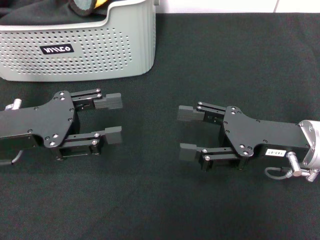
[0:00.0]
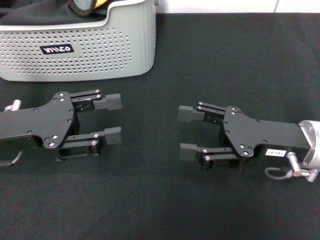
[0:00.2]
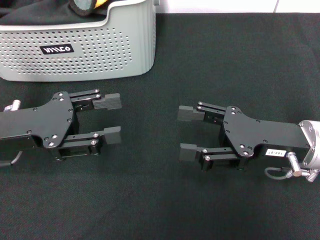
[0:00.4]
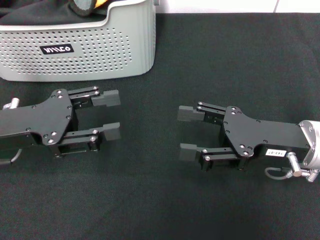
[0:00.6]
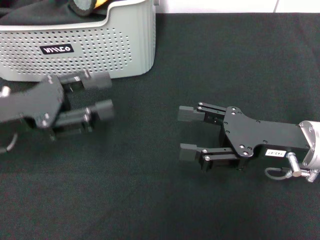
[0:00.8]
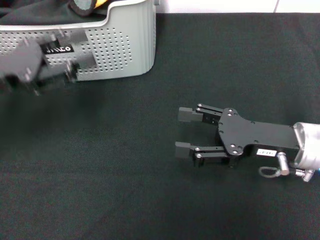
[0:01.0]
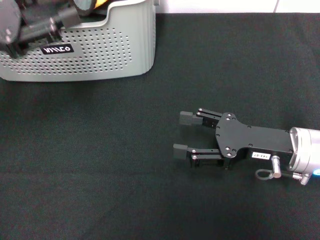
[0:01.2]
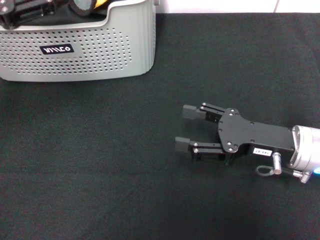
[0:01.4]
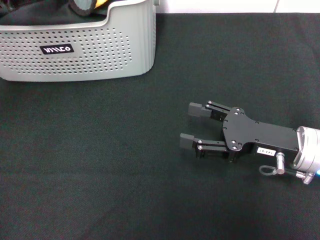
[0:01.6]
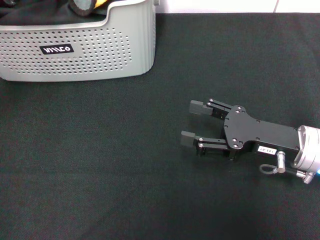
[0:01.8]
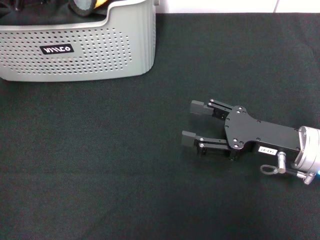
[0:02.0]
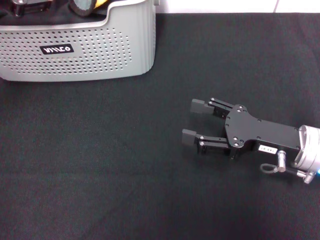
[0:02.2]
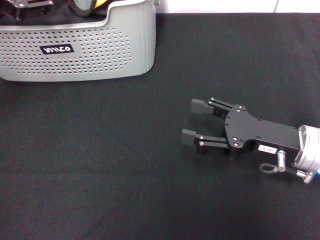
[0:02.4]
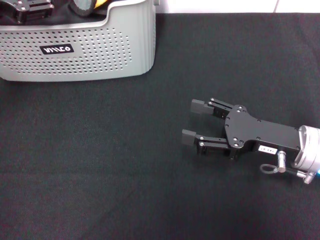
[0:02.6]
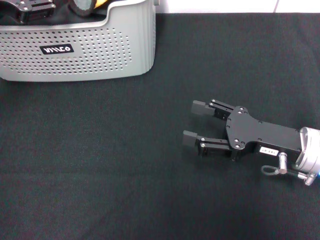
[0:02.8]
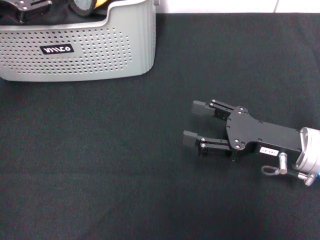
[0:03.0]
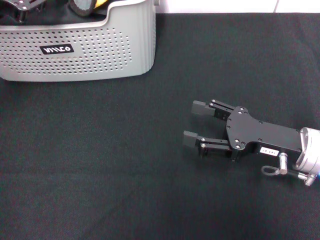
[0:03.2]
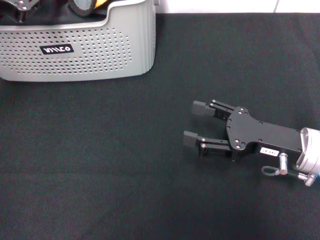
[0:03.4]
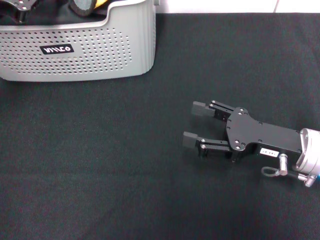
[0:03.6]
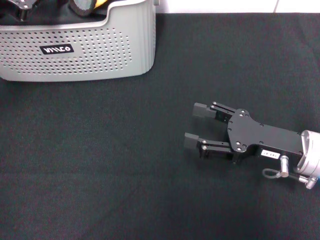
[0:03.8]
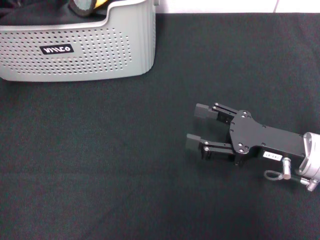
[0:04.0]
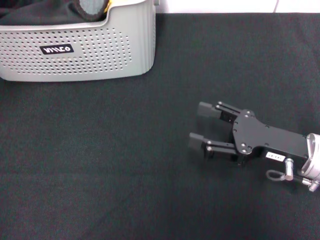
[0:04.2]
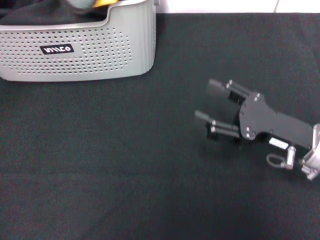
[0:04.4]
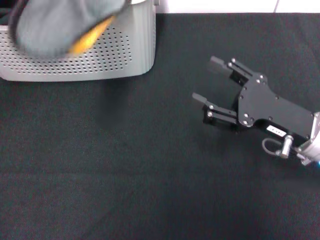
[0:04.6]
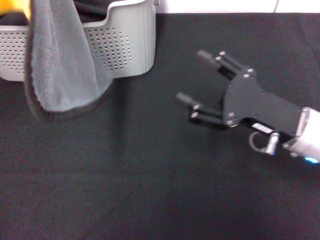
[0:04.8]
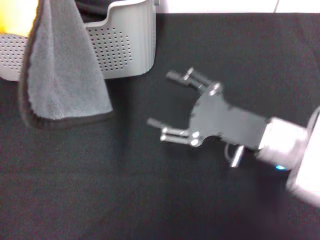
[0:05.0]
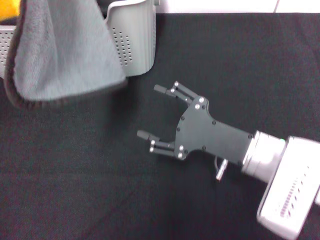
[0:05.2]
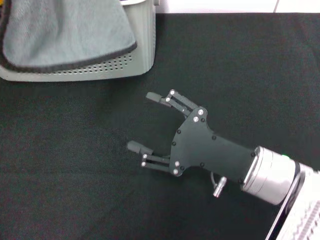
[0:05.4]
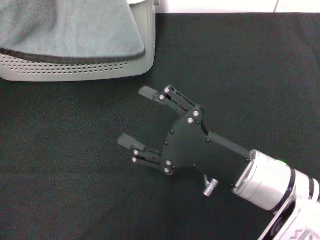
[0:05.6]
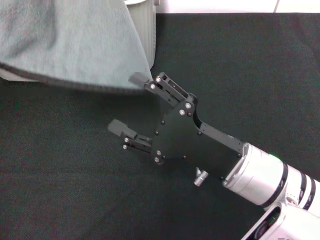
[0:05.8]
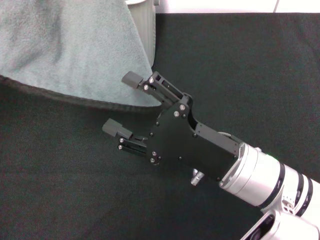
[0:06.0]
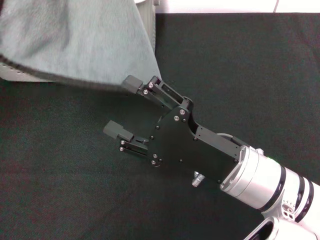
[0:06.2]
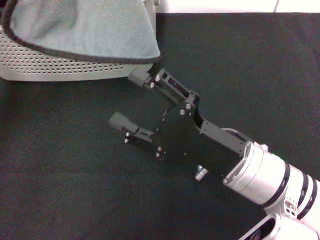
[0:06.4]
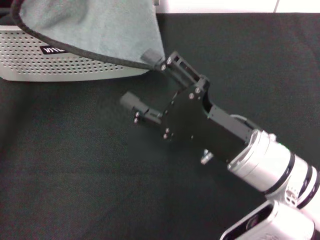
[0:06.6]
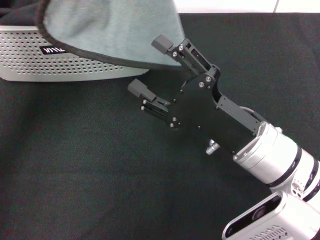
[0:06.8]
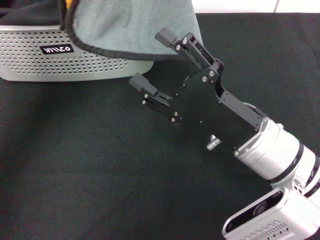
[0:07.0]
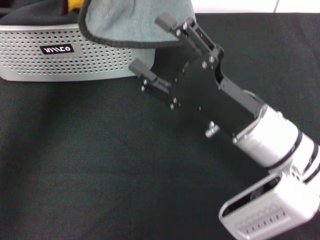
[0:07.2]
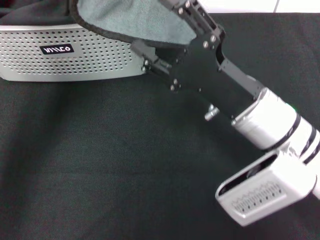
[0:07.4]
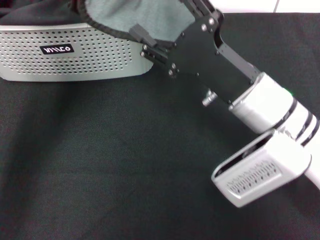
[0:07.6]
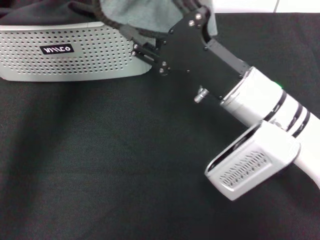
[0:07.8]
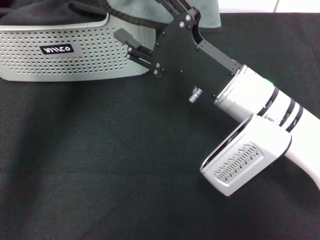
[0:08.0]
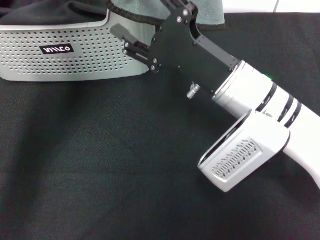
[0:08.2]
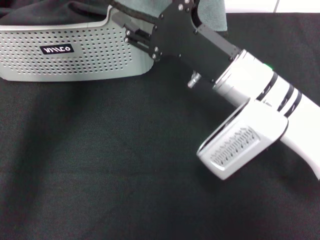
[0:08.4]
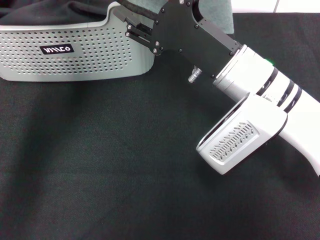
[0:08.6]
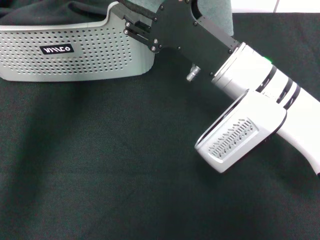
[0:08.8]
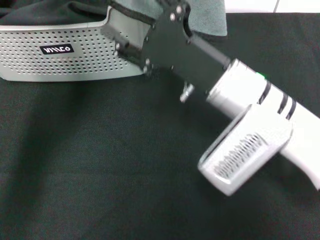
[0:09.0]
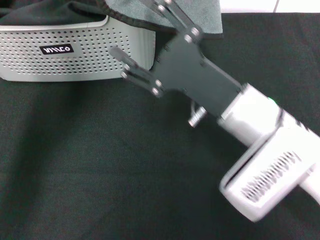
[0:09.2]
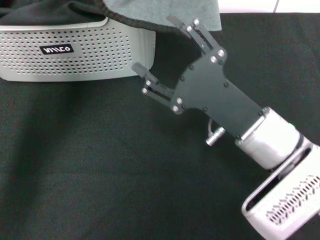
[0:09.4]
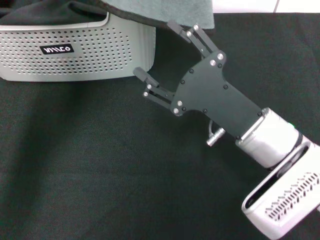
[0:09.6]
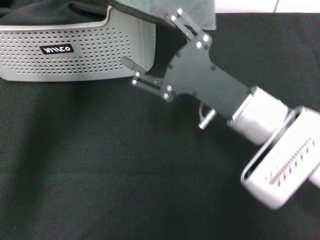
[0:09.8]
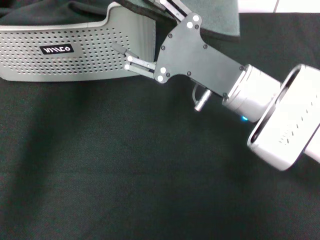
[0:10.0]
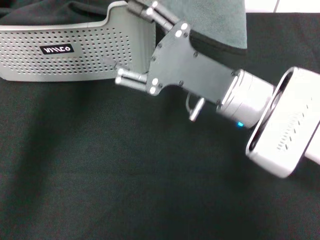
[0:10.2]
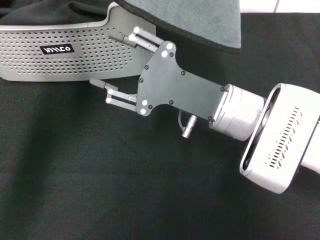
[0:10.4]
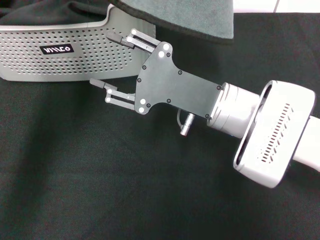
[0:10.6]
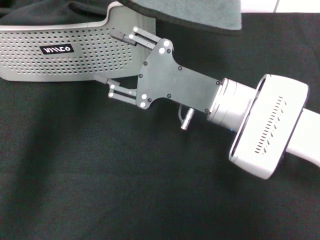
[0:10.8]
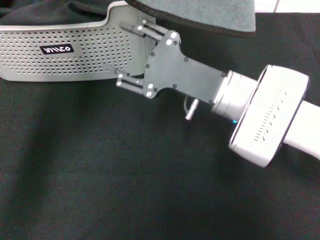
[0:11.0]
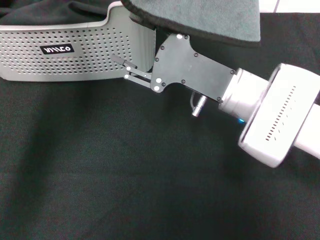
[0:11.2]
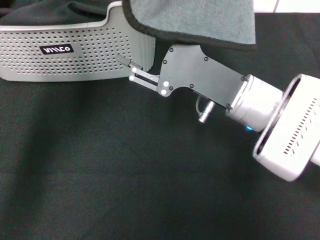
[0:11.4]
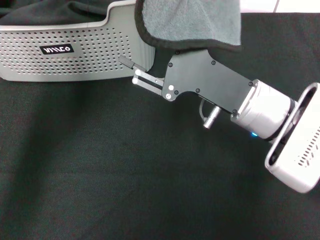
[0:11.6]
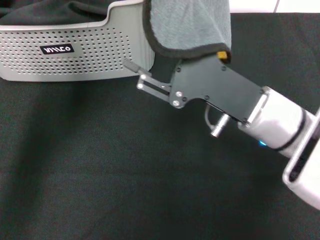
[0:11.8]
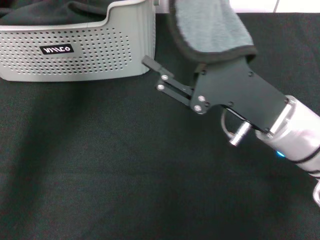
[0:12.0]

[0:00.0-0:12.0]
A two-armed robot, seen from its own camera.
Task of the whole recording: pick up the towel from the storage box and lay it flat on the black tablecloth.
Step, 0:00.0 to 0:03.8: Pick up a towel with the left gripper.
0:00.0 to 0:01.6: The left gripper shifts roughly 15 cm upward.
0:01.6 to 0:03.0: There are only small adjustments of the grippers.
0:03.0 to 0:04.4: The left gripper is displaced upward by approximately 5 cm, and closes.
0:04.4 to 0:06.0: The right gripper goes about 10 cm to the left and backward.
0:06.0 to 0:07.6: The right gripper goes approximately 5 cm forward, while the left gripper travels to the right by approximately 10 cm.
0:10.4 to 0:12.0: The right gripper changes place by approximately 5 cm.

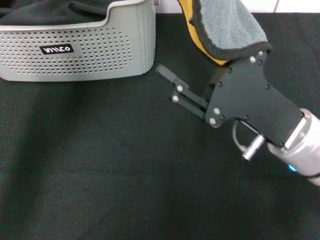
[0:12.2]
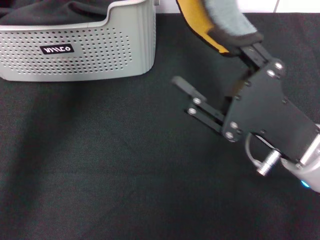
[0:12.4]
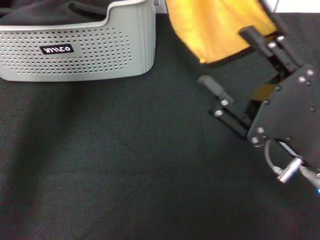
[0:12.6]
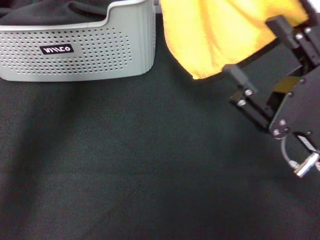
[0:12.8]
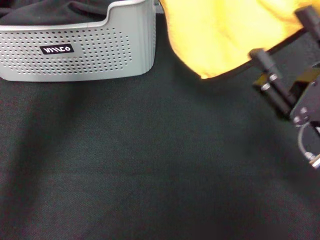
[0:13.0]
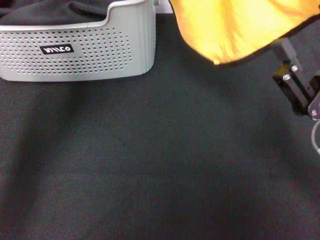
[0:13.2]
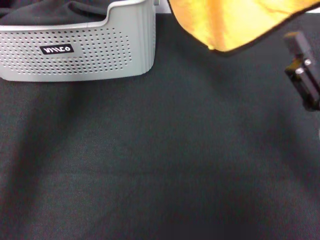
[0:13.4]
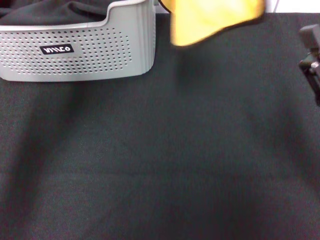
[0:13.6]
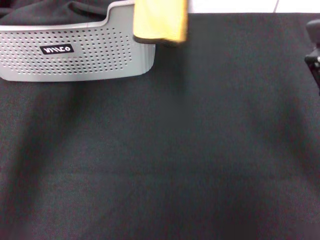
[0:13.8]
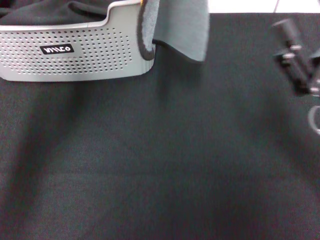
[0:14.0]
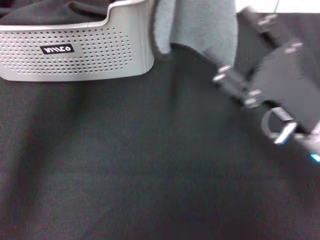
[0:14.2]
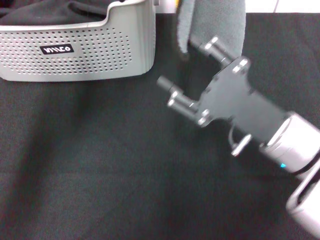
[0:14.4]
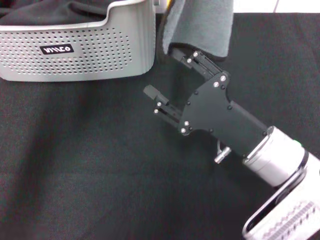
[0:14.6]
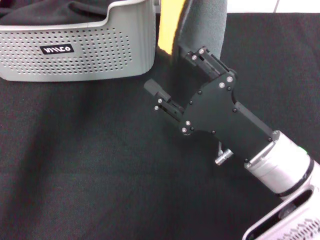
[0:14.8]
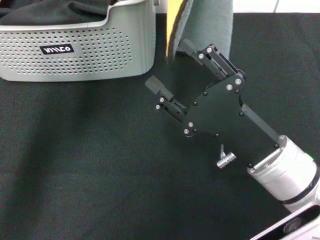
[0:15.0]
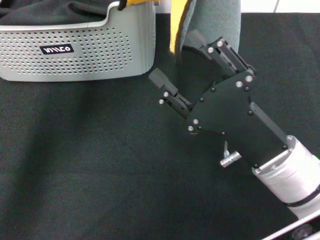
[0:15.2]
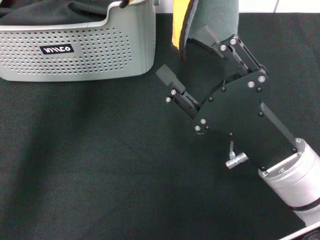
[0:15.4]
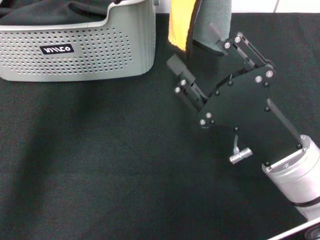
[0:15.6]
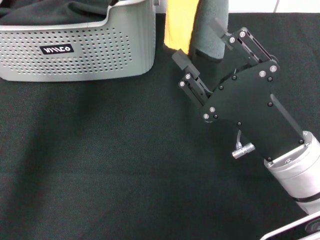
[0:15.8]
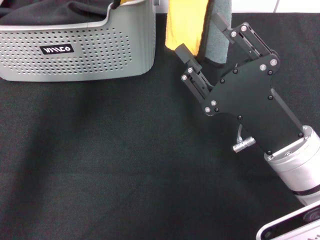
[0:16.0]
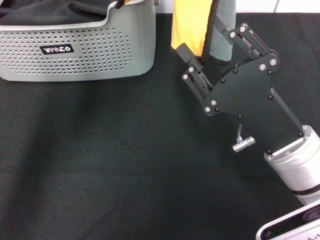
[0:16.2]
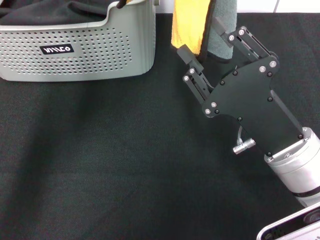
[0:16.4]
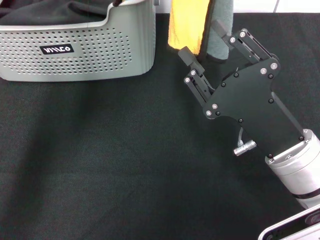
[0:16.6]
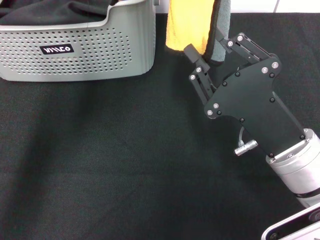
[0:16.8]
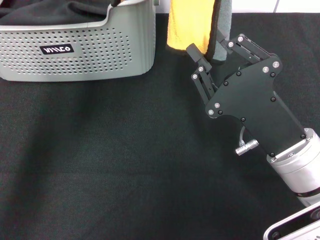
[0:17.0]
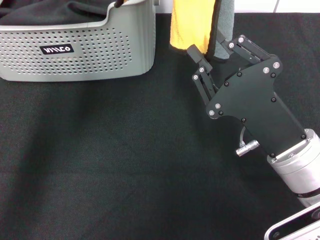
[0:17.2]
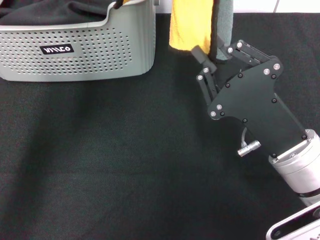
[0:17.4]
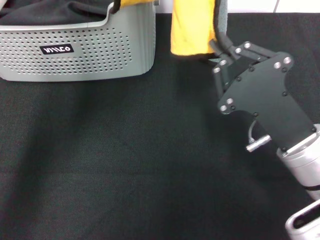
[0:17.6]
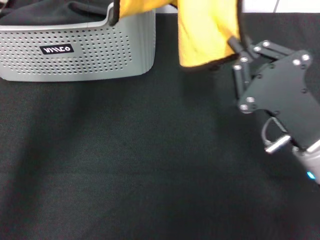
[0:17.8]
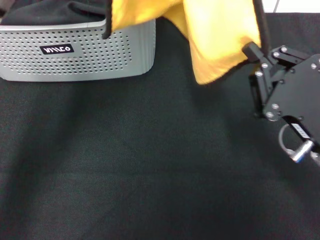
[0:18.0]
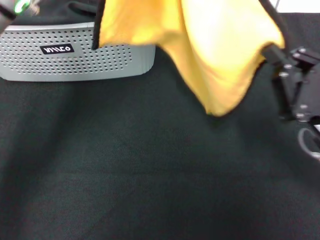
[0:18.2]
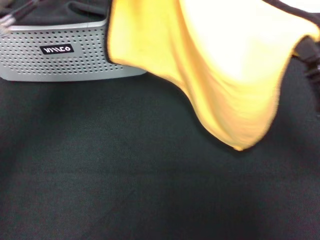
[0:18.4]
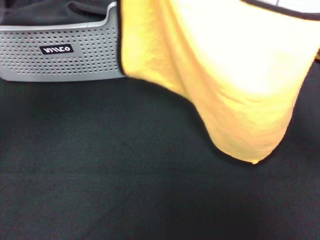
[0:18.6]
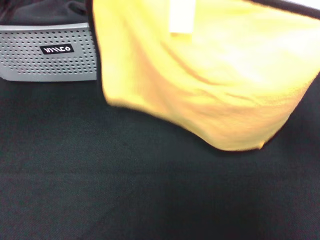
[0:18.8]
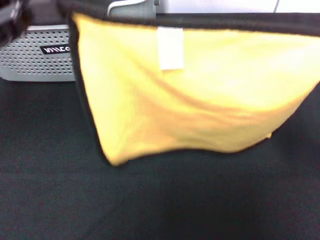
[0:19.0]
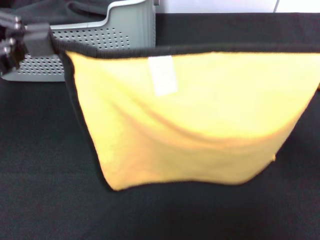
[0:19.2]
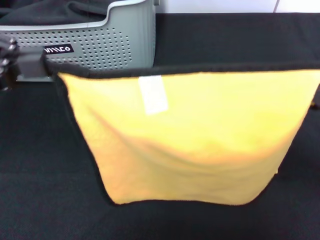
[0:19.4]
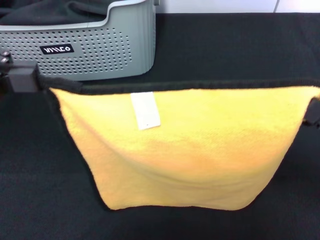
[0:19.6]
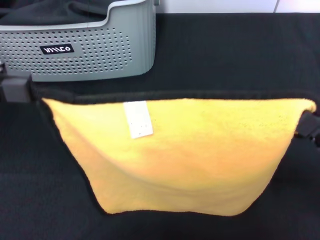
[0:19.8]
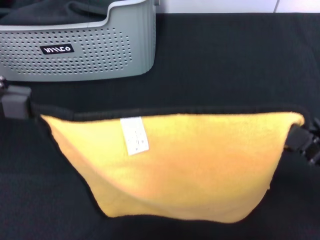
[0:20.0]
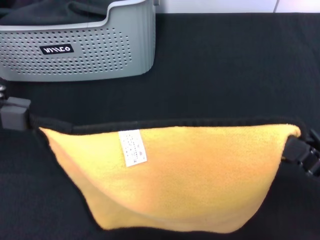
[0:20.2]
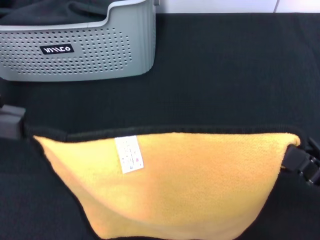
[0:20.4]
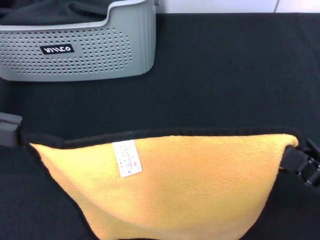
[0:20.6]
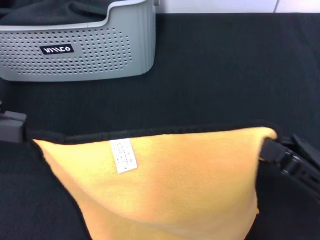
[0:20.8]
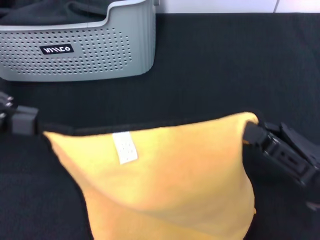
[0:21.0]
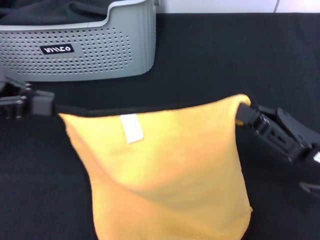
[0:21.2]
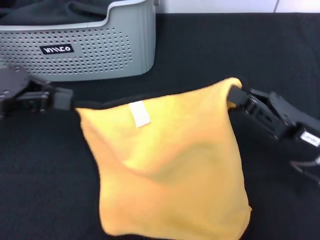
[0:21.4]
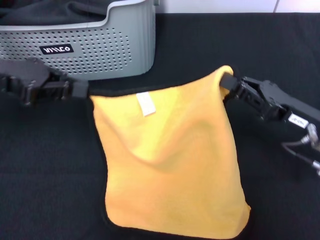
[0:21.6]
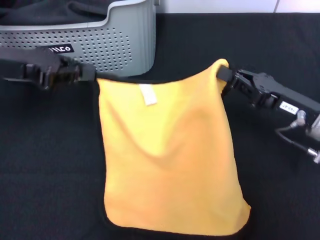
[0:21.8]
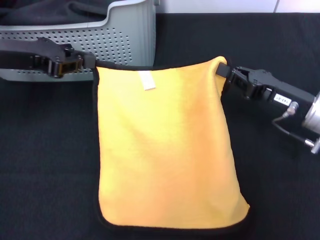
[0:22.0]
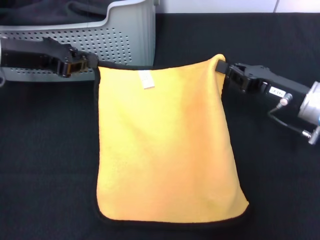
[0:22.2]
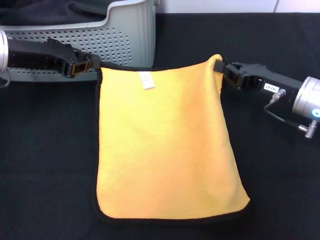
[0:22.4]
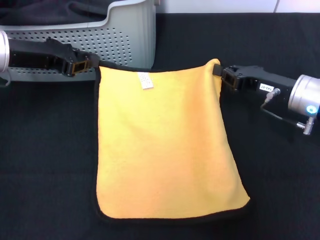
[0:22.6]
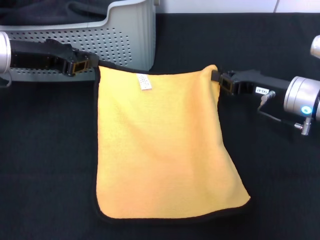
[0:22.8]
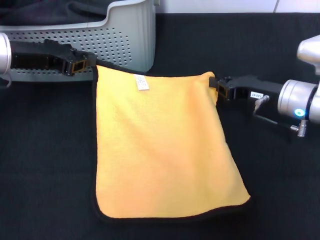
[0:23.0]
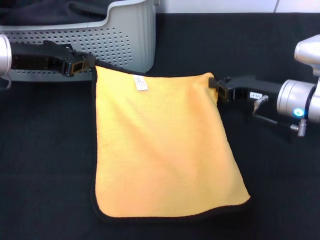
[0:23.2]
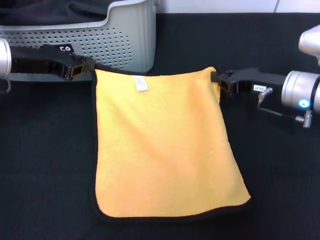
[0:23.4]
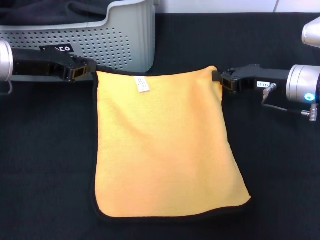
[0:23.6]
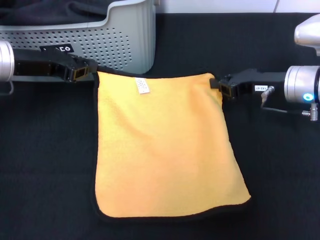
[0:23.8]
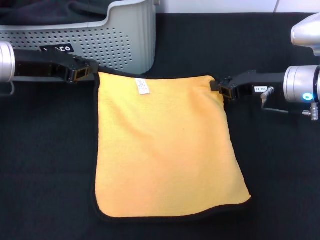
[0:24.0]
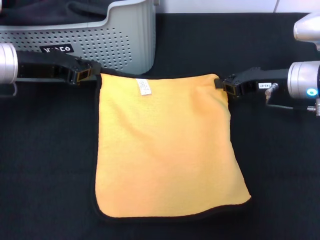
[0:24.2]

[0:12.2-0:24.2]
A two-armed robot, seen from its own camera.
Task of the whole recording: pick up the towel from the storage box and lay it flat on the black tablecloth.
Step, 0:12.2 to 0:17.6: Spread the towel flat with the left gripper.
0:12.2 to 0:13.8: The right gripper goes some 10 cm to the right.
0:13.8 to 0:15.2: The right gripper travels to the left by roughly 10 cm.
0:15.2 to 0:16.6: The grippers make only small movements.
0:16.6 to 0:18.2: The right gripper is displaced to the right by approximately 10 cm, and closes its fingers. Meanwhile the left gripper shifts by approximately 5 cm.
0:18.2 to 0:19.8: The left gripper heads to the left, covering approximately 15 cm.
0:21.2 to 0:22.6: The left gripper moves forward, downward and to the right, approximately 15 cm, while the right gripper travels forward by roughly 15 cm.
